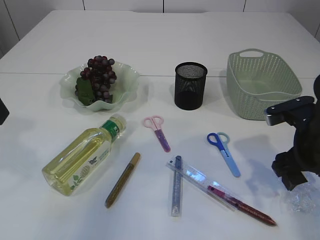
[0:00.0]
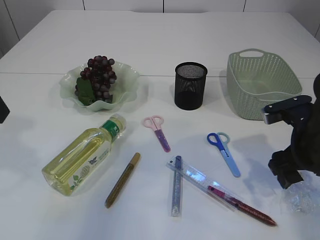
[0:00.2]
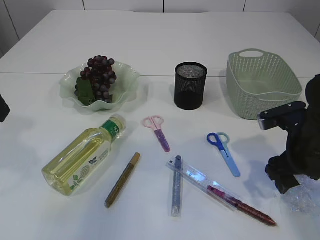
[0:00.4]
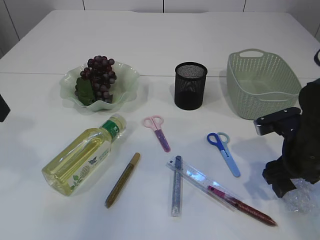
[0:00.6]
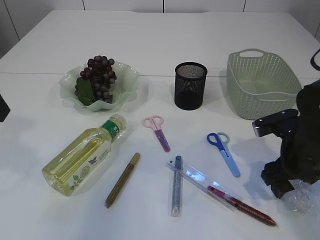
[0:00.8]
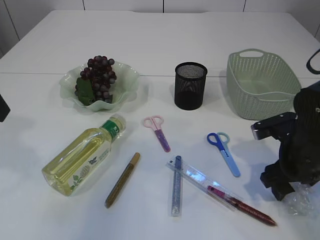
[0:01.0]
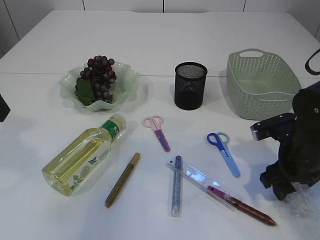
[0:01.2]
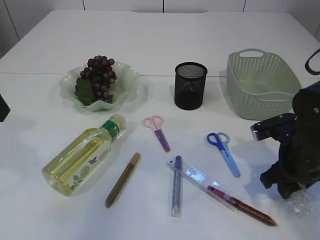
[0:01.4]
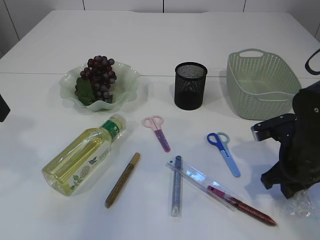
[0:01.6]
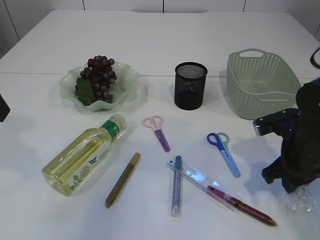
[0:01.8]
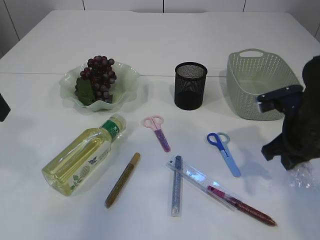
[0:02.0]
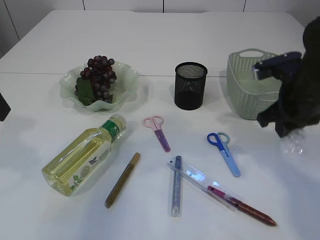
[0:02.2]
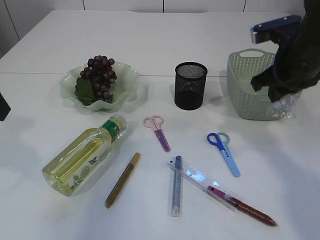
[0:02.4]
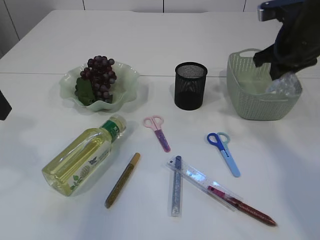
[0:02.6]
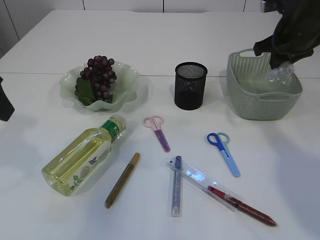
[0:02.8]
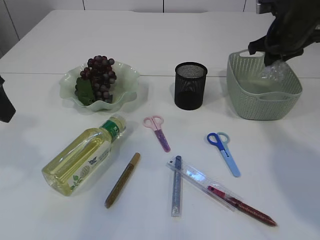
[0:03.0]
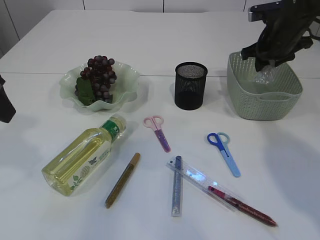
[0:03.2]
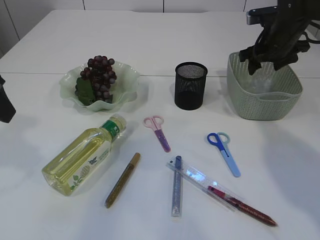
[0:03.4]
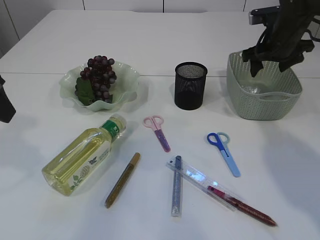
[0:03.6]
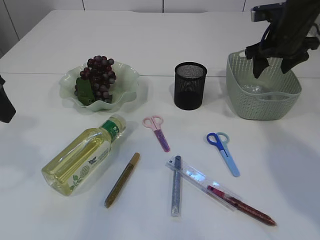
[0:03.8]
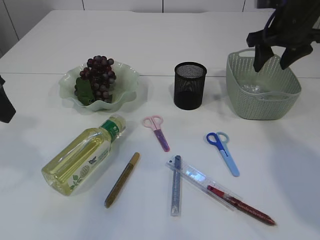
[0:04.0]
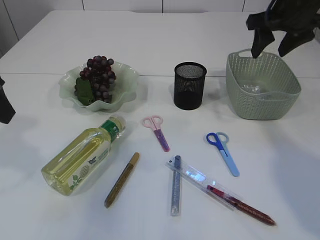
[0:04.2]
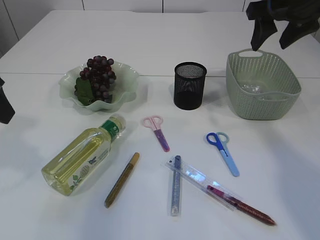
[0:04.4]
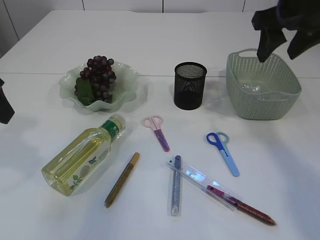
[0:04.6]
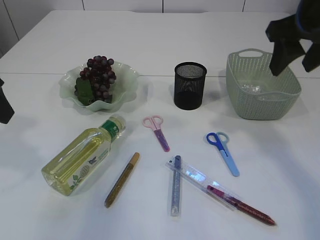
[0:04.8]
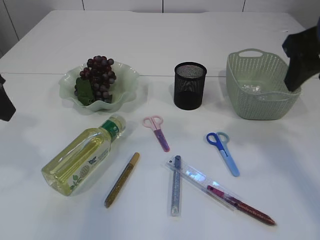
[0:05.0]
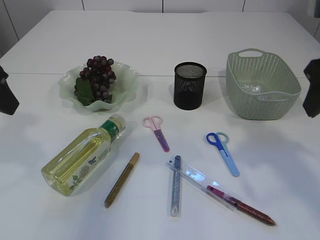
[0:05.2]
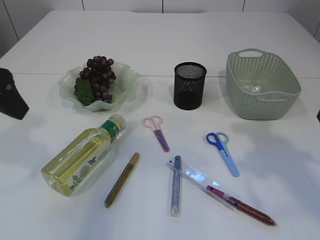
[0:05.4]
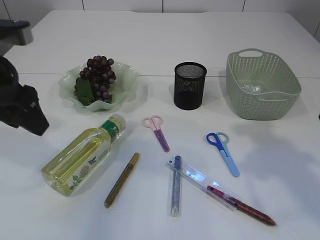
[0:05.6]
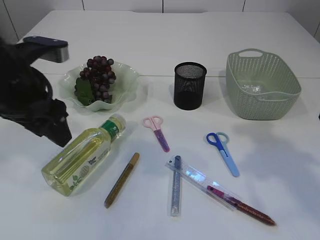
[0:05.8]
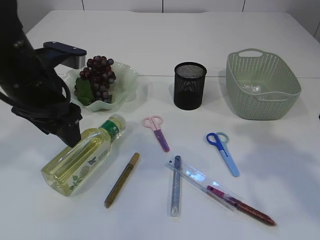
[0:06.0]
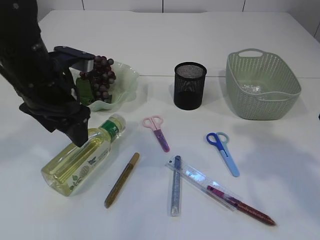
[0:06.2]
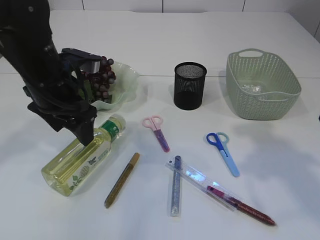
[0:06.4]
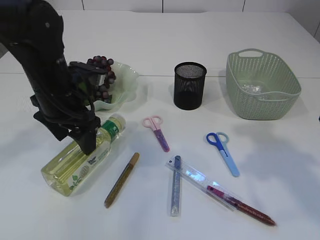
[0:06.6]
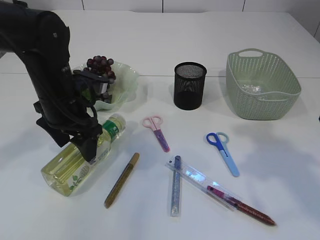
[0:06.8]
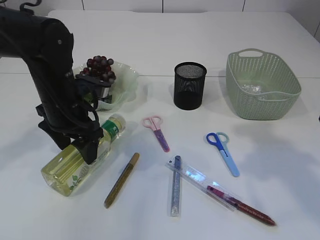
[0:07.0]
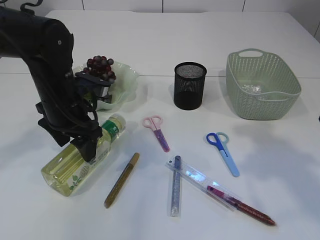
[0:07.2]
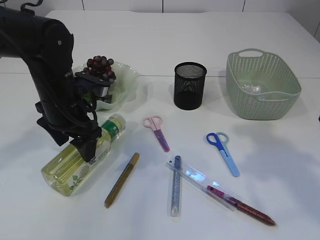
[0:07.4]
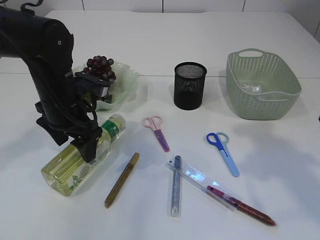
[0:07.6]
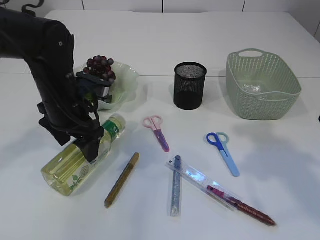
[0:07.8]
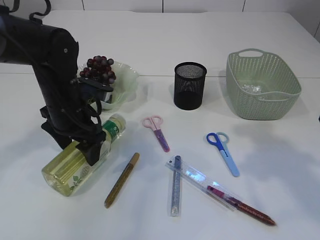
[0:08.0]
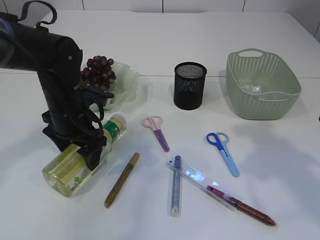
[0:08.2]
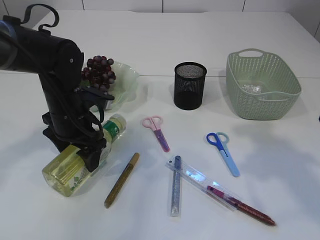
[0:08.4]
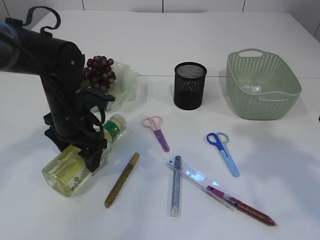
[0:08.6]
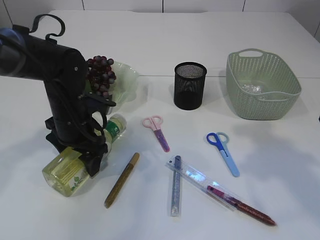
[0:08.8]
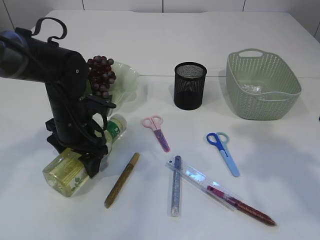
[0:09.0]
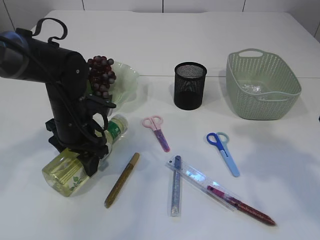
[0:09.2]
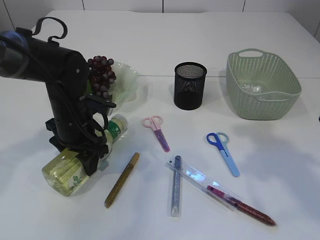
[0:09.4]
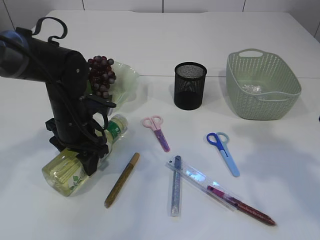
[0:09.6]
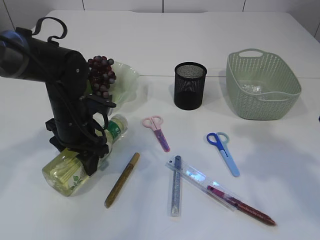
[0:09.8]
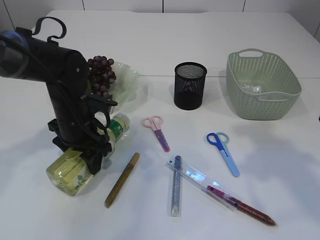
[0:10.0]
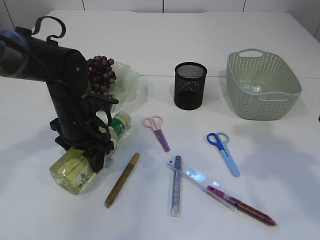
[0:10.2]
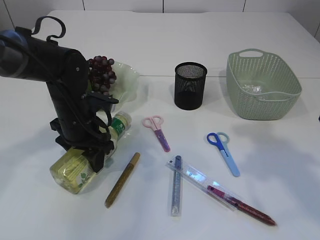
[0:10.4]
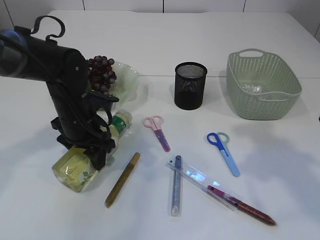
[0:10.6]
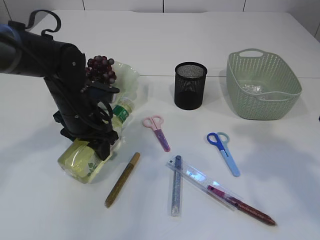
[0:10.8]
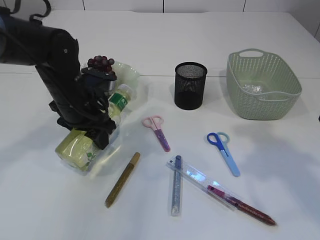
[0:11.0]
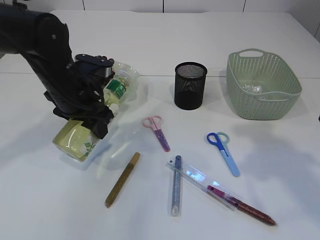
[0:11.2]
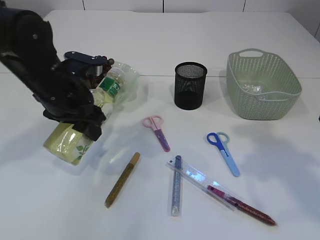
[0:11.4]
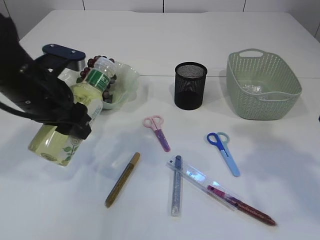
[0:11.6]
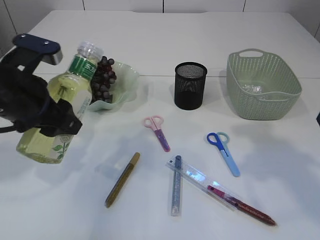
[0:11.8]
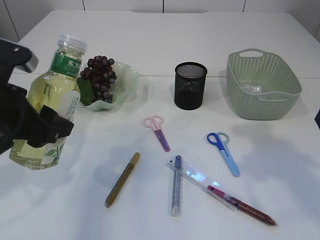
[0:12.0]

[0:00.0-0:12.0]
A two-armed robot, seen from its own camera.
Step, 0:00.0 to 0:02.2: Pick up the plastic.
Step, 0:02.4 to 0:04.0: Place the plastic in the basket.
Step, 0:04.2 to 0:11.0: Pick up the bottle with the left arm.
0:00.0 to 0:01.6: The right gripper closes its fingers.
0:01.6 to 0:03.0: The right gripper goes approximately 20 cm forward and upward.
0:03.0 to 0:04.4: The right gripper moves upward and backward, approximately 10 cm, and opens.
0:04.4 to 0:06.0: The right gripper is displaced backward by roughly 20 cm. The left gripper is displaced to the right, downward and forward by roughly 10 cm.
0:06.0 to 0:07.6: The left gripper moves downward, approximately 5 cm.
0:07.6 to 0:09.0: The left gripper is displaced downward by some 5 cm.
0:09.0 to 0:10.4: Neither gripper changes place.
0:10.4 to 0:12.0: The left gripper heads backward, upward and to the left, covering approximately 20 cm.

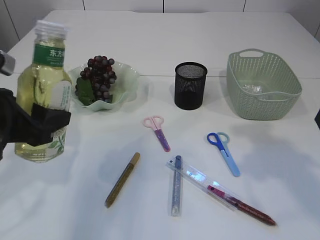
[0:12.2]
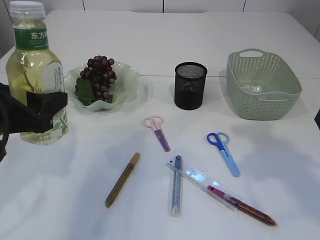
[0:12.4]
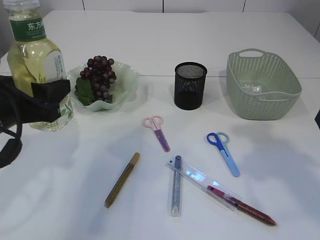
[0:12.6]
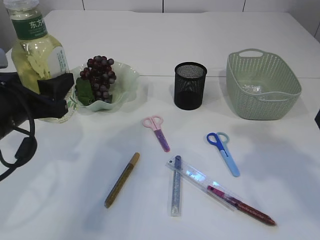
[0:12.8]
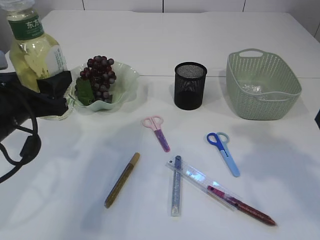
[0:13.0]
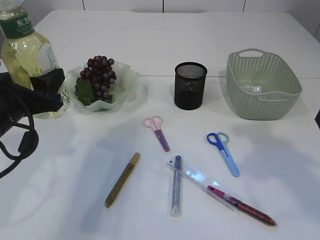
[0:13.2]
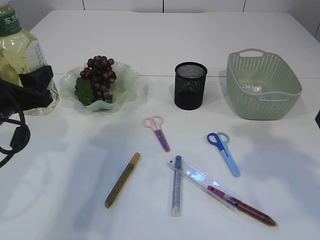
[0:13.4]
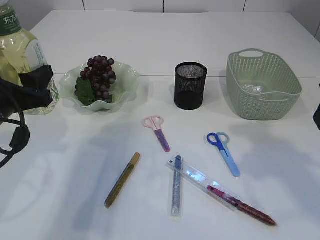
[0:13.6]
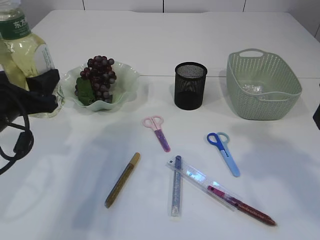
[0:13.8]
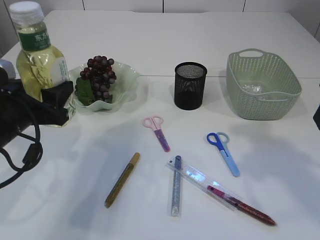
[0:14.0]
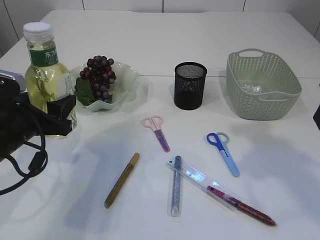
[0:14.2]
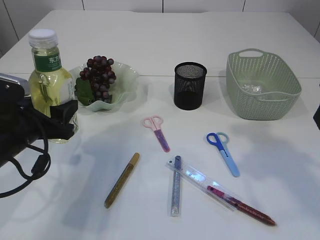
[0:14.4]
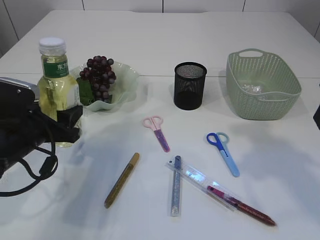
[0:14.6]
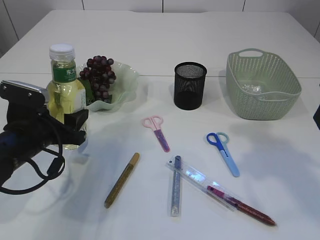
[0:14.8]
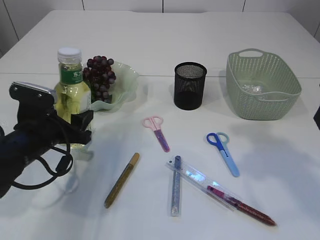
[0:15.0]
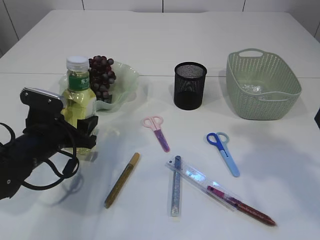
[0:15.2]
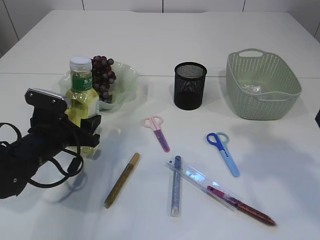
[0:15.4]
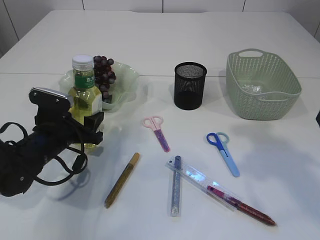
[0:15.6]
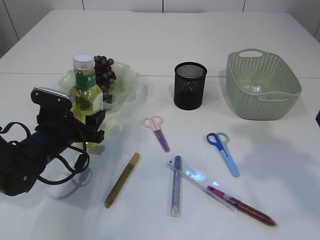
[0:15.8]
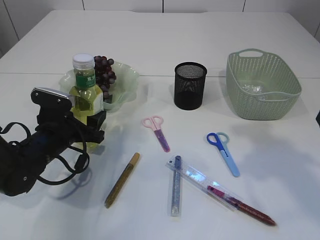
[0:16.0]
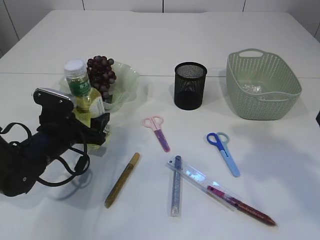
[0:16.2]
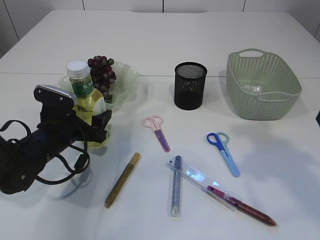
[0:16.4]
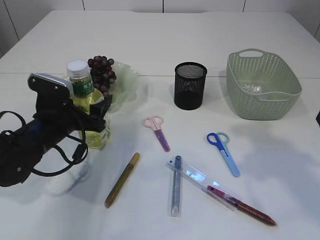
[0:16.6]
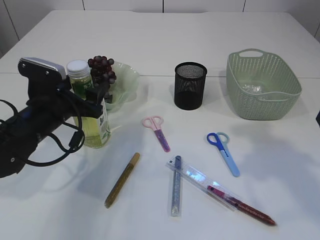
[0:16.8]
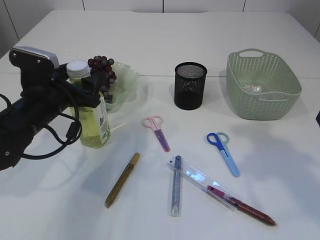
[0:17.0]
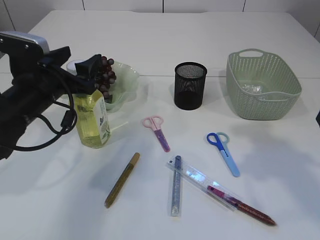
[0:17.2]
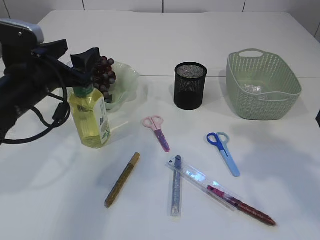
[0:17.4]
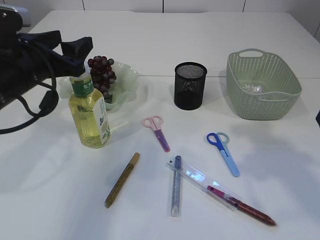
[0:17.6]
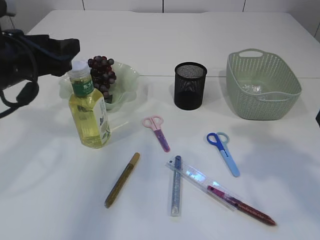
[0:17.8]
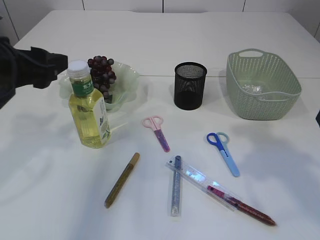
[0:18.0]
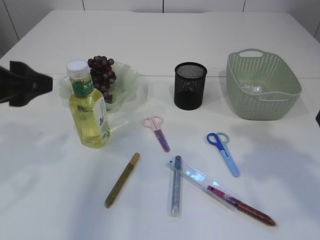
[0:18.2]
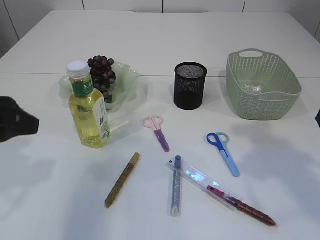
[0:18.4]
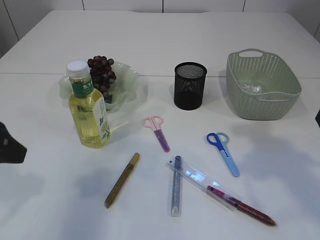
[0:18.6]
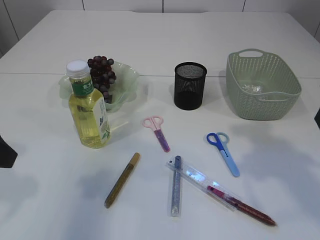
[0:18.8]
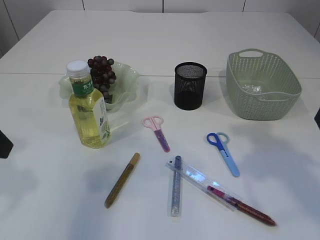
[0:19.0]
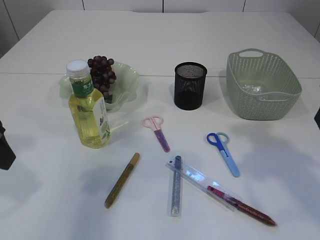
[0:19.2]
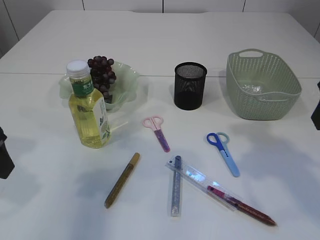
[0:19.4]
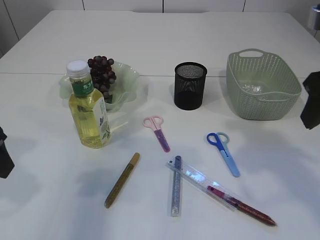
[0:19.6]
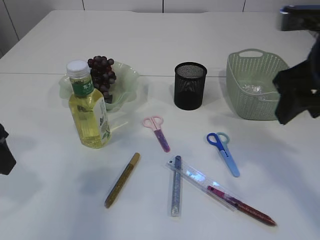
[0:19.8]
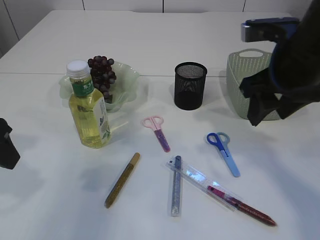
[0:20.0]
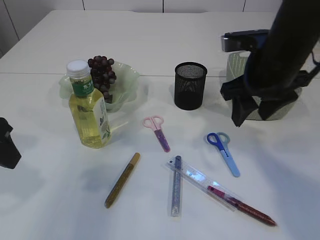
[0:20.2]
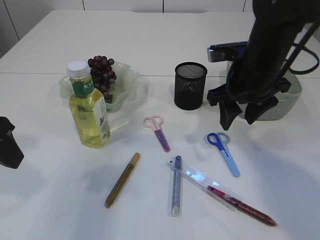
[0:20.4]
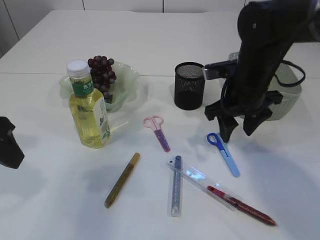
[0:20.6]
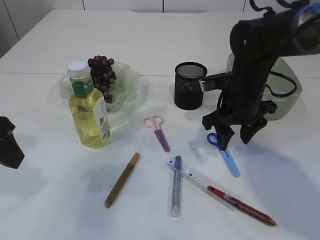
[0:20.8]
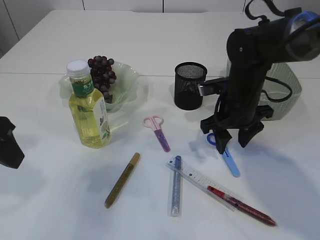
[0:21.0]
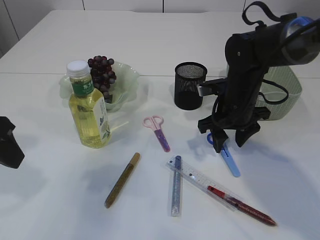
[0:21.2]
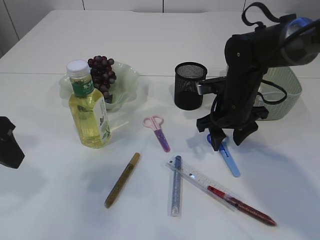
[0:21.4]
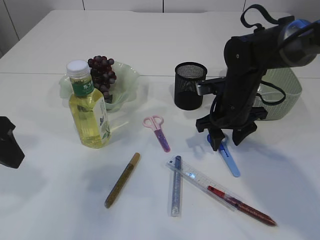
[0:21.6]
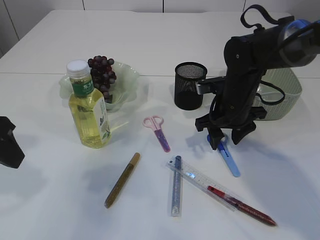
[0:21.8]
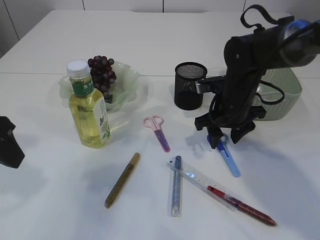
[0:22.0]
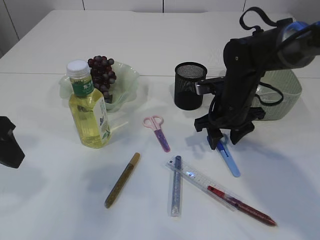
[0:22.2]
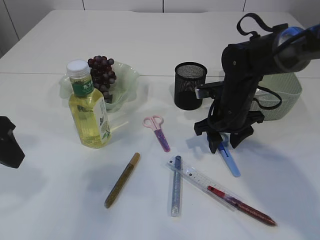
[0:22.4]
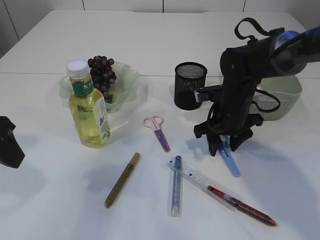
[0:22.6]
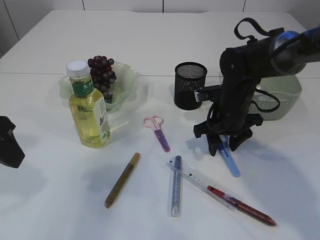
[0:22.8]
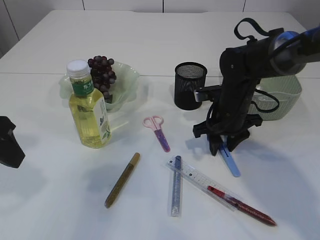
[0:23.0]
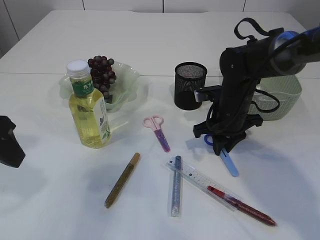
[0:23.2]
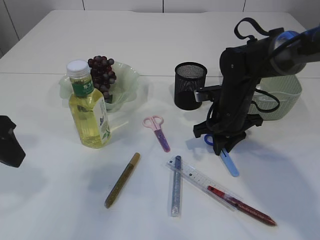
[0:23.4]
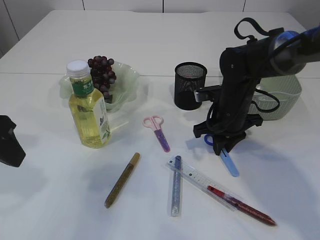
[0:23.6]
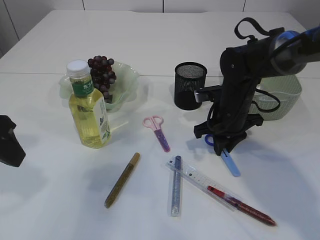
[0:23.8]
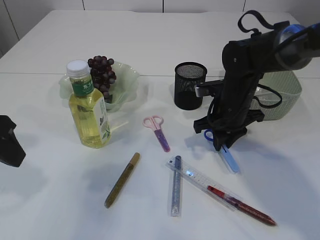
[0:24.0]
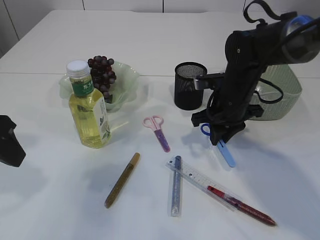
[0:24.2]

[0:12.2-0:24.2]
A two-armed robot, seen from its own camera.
Step, 0:12.2 to 0:17.4: Place the bottle.
Step, 0:17.6 to 0:24.2: pick up the blue scissors.
0:12.2 to 0:13.8: The left gripper shifts by some 5 cm.
0:13.8 to 0:15.2: The left gripper is displaced downward by roughly 10 cm.
0:15.2 to 0:16.6: The grippers stay close to where they were, moving slightly.
0:16.6 to 0:18.2: The left gripper heads upward and backward, covering approximately 20 cm.
0:18.2 to 0:19.8: The right gripper moves some 5 cm.
0:19.8 to 0:21.2: The right gripper is displaced downward and forward by approximately 20 cm.
0:21.2 to 0:22.6: The grippers stay close to where they were, moving slightly.
0:22.6 to 0:24.2: The right gripper closes.
